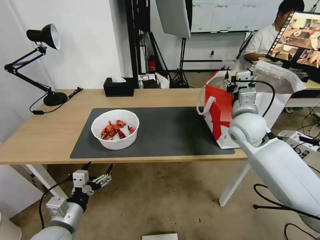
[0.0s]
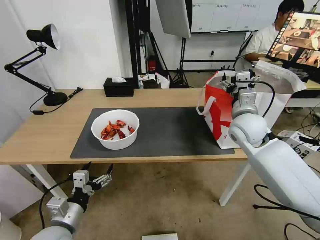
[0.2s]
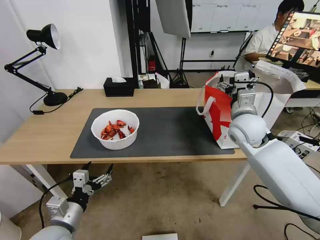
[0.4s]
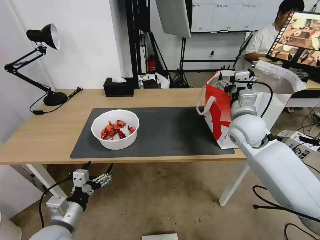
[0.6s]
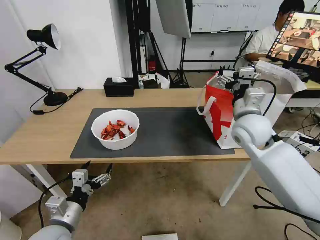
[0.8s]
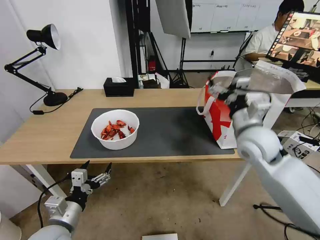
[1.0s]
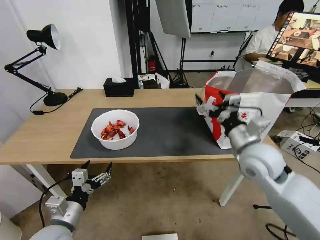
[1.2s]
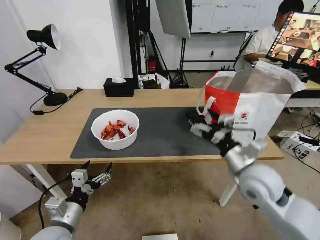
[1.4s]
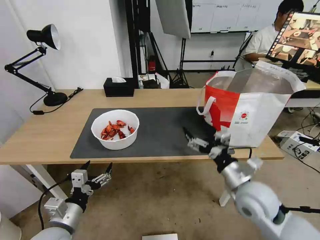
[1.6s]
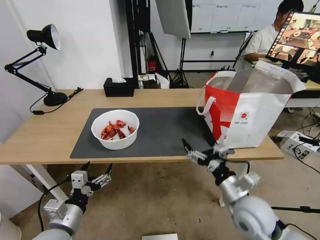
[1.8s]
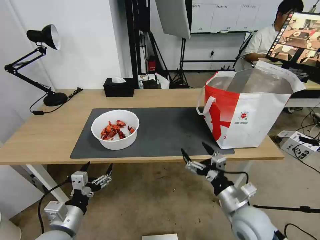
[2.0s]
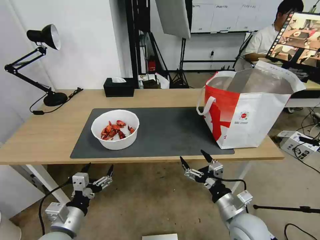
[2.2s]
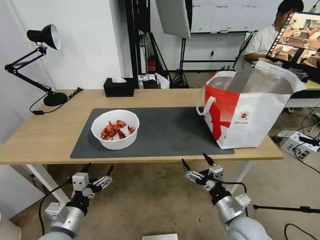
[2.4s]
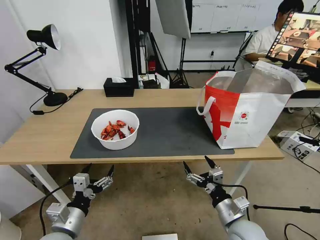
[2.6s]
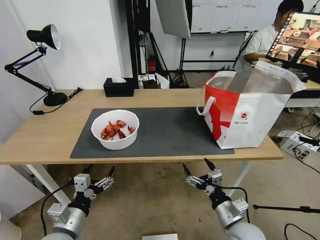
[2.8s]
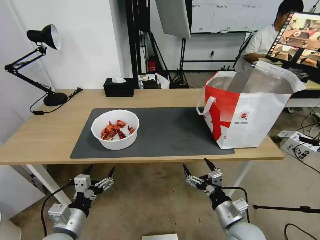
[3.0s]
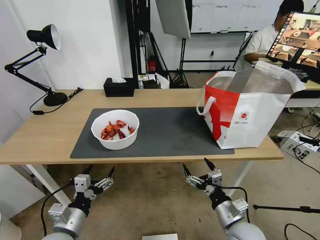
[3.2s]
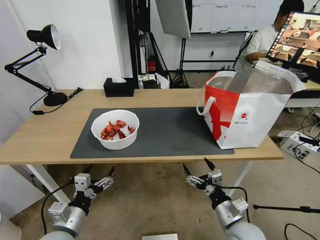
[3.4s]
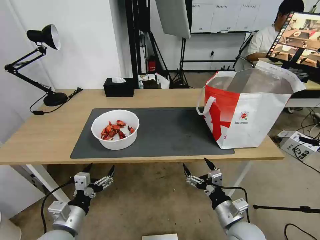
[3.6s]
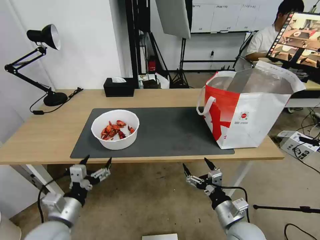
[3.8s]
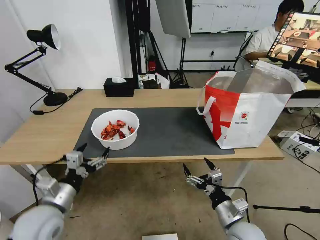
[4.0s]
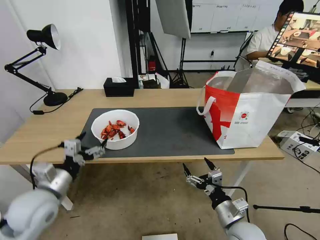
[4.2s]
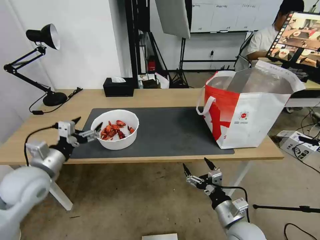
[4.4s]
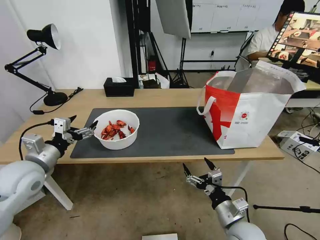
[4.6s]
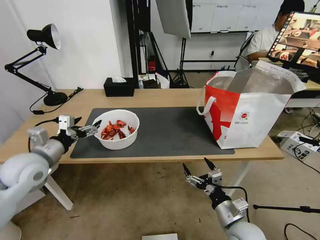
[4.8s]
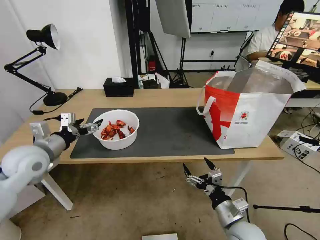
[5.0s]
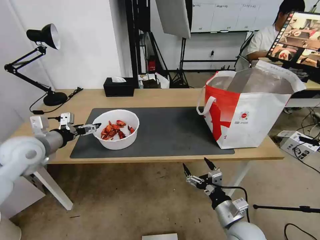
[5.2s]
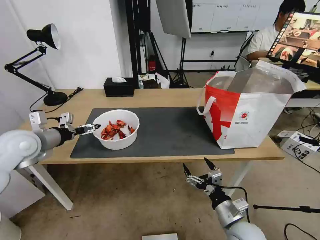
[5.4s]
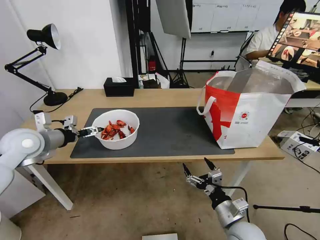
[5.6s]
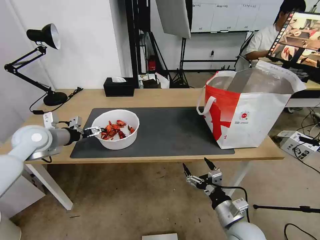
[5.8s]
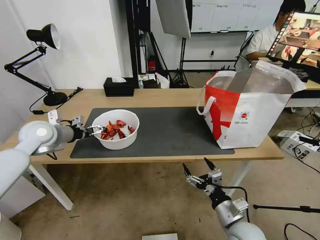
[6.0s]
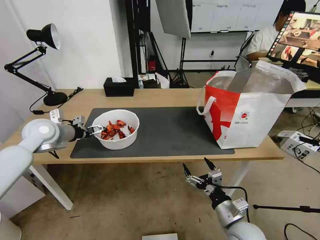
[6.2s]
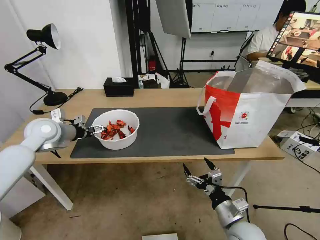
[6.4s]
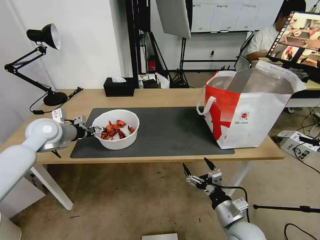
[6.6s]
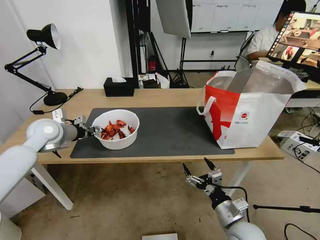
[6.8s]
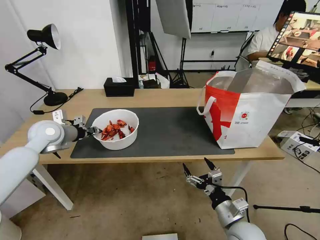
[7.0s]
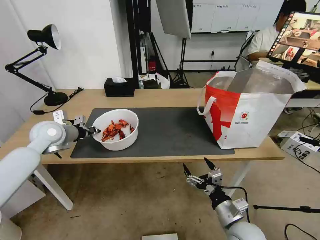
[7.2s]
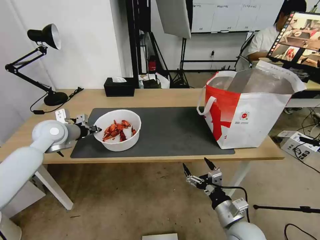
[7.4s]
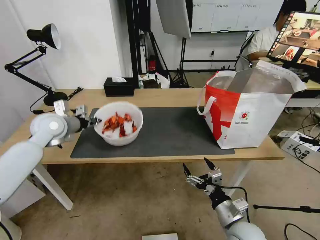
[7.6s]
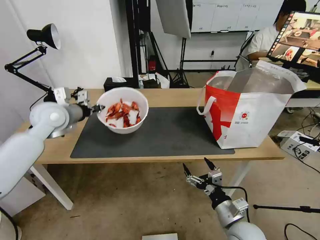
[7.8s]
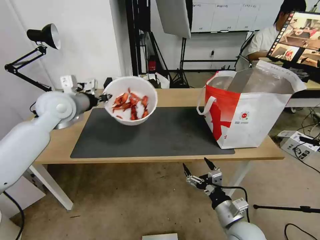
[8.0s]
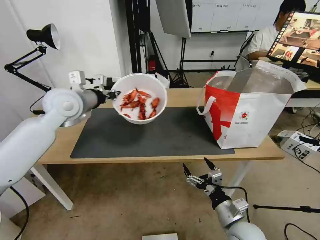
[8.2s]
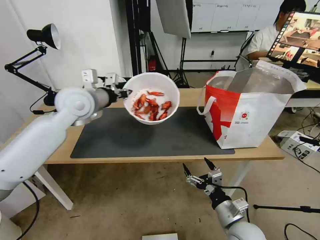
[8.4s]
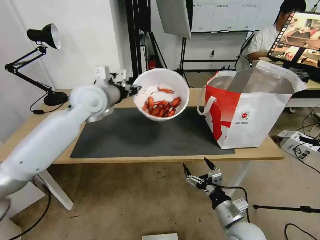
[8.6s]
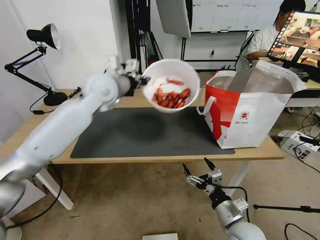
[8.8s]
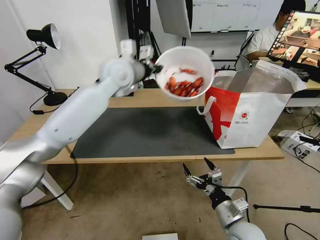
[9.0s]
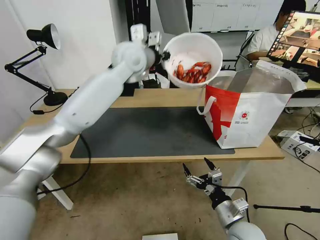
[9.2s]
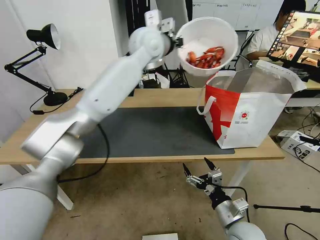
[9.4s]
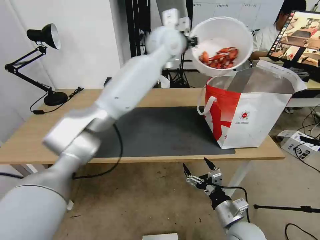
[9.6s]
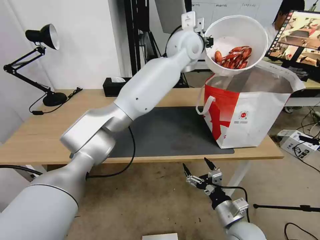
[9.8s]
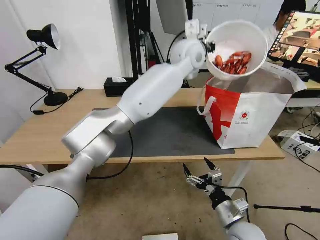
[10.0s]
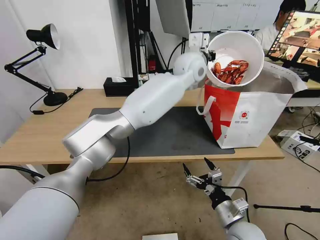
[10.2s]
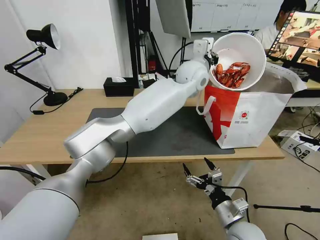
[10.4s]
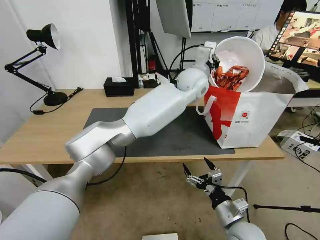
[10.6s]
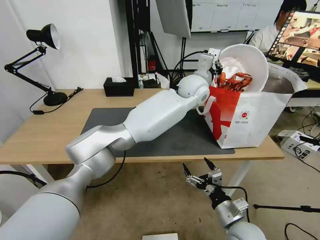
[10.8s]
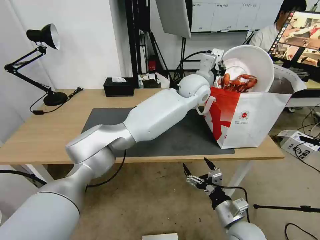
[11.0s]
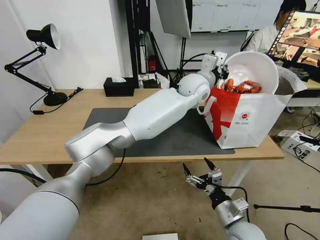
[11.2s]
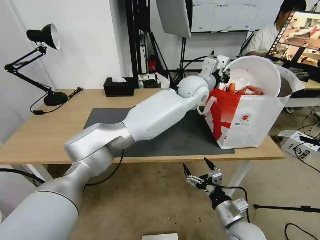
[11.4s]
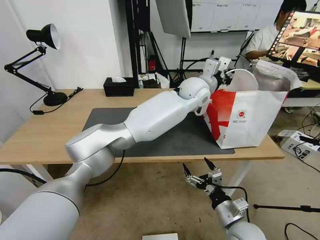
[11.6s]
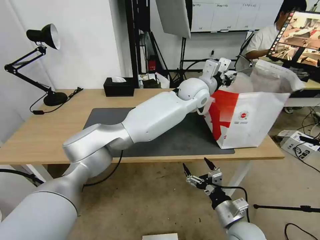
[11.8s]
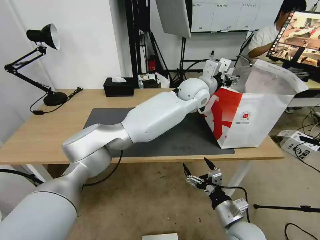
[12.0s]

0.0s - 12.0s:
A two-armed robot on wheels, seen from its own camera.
Task of the whole recording: Pick up the trash from the table and place it into the takeout bag.
0.0s - 1.6s: The right gripper heads backward and downward, covering roughly 20 cm.
1.6s - 3.0s: The right gripper shifts roughly 15 cm downward and backward.
3.0s - 4.4s: The left gripper heads forward, upward and to the left, covering about 20 cm.
4.4s - 6.0s: The left gripper is displaced forward by roughly 15 cm.
6.0s - 7.6s: The left gripper closes up.
7.6s - 9.0s: The left gripper goes some 25 cm to the right and upward.
9.0s - 10.4s: The left gripper moves to the right, about 20 cm.
10.4s - 12.0s: The left gripper ends up roughly 5 cm from where it was, and opens up.

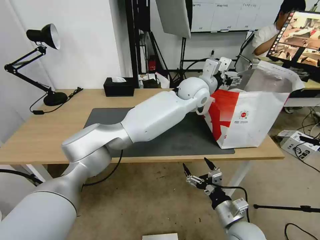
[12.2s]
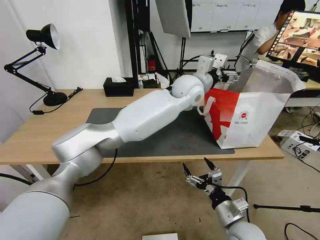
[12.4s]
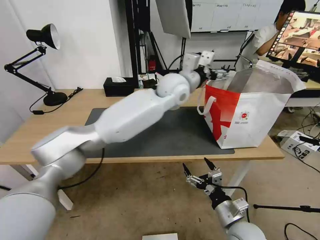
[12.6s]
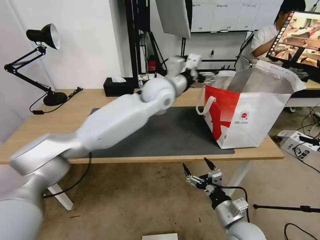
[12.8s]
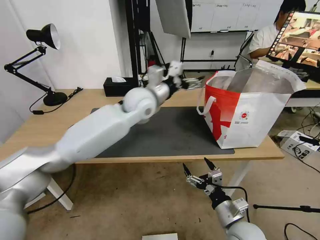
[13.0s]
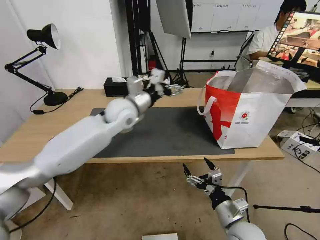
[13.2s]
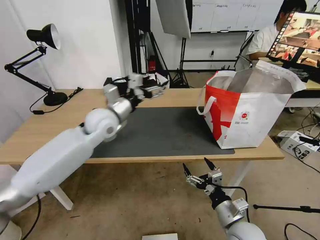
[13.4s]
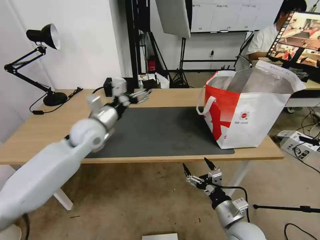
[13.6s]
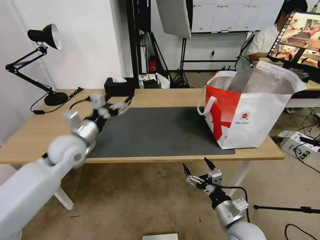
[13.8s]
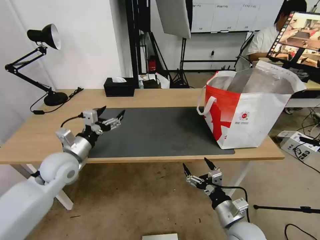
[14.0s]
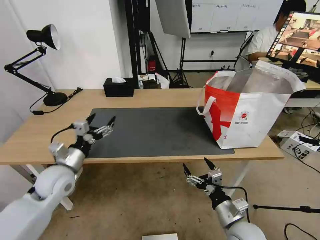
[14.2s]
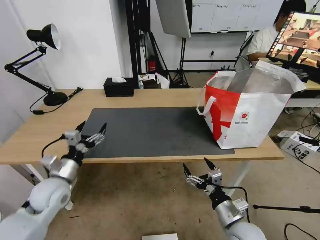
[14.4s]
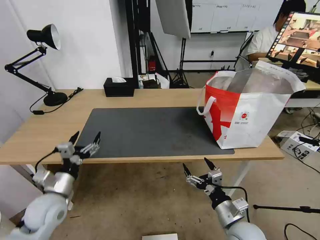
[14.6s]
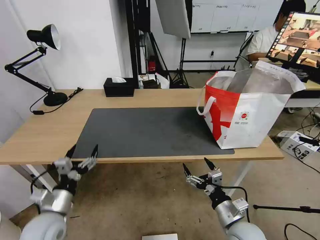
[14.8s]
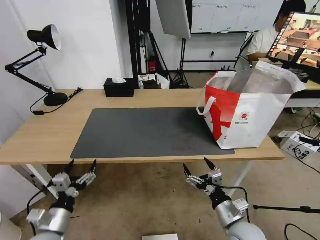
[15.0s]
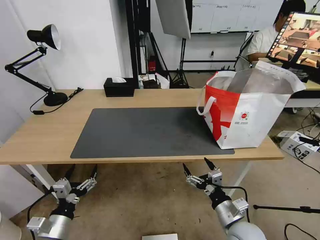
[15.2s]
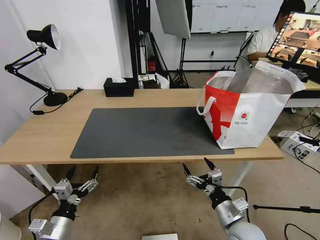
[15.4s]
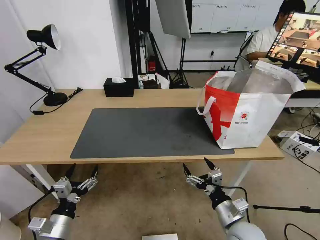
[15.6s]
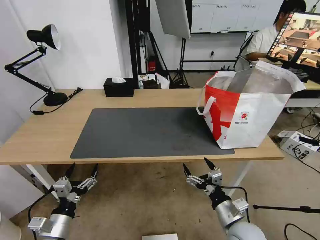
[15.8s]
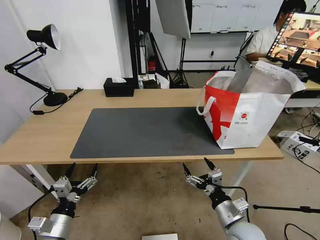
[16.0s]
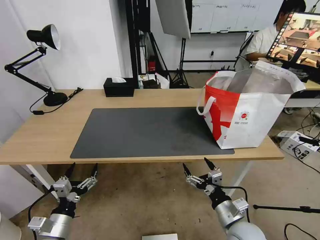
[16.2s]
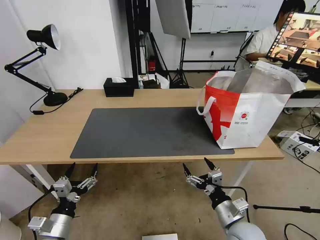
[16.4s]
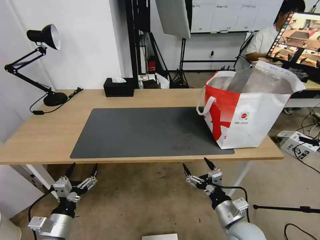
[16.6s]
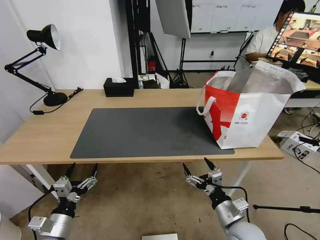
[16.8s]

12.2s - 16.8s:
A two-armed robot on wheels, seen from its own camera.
Task of the whole recording: Pick up the trash from the table and place it into the takeout bag.
12.2s - 13.8s: The left gripper shifts approximately 40 cm to the left and backward.
13.8s - 15.2s: The left gripper is displaced backward and downward by roughly 30 cm.
15.2s - 16.8s: Both grippers stay put.
